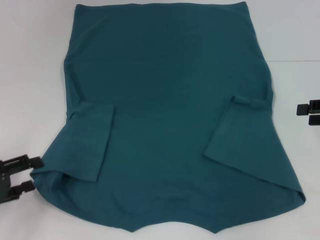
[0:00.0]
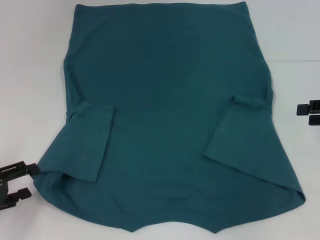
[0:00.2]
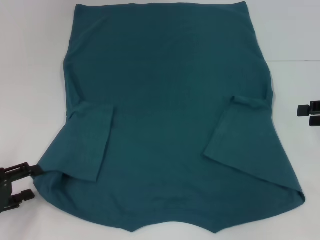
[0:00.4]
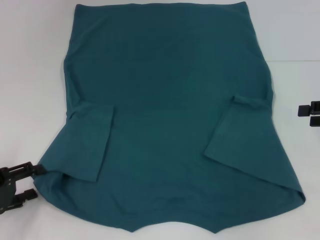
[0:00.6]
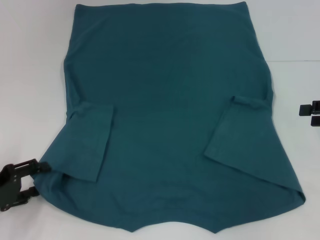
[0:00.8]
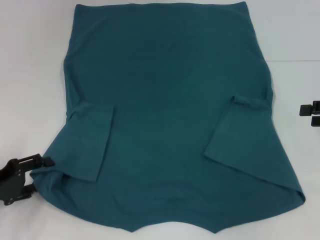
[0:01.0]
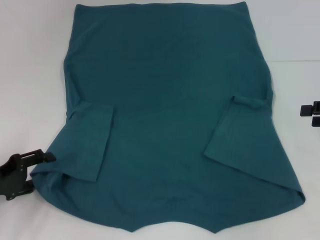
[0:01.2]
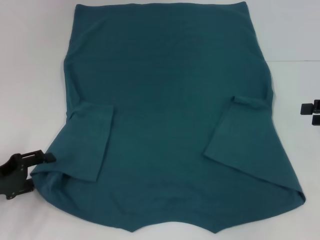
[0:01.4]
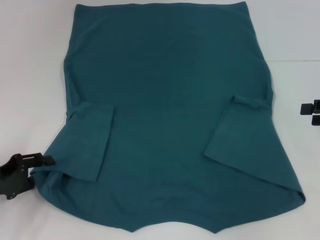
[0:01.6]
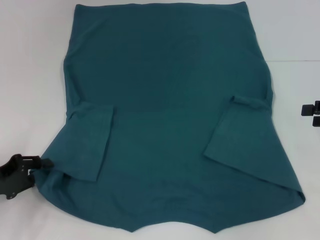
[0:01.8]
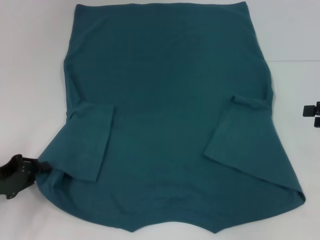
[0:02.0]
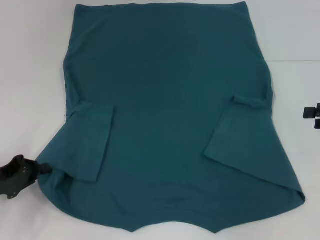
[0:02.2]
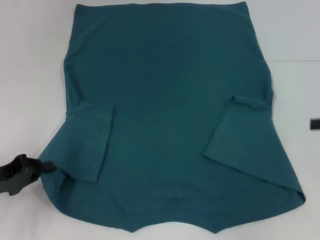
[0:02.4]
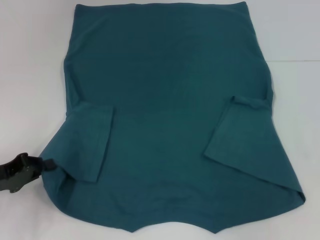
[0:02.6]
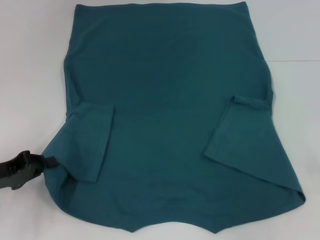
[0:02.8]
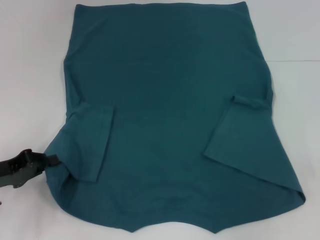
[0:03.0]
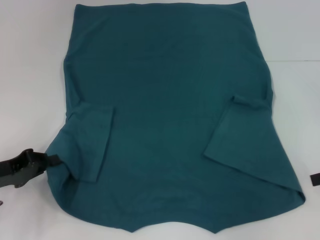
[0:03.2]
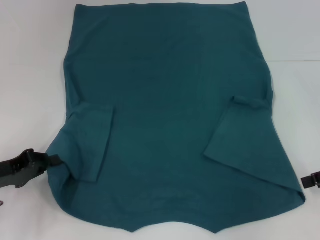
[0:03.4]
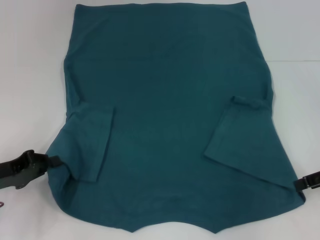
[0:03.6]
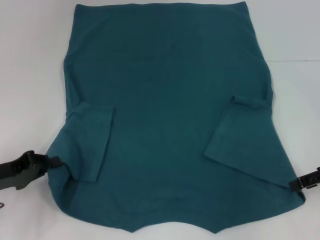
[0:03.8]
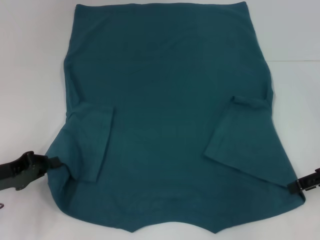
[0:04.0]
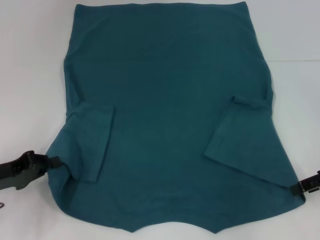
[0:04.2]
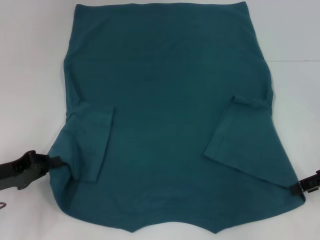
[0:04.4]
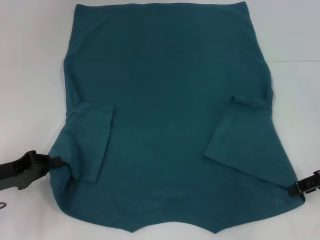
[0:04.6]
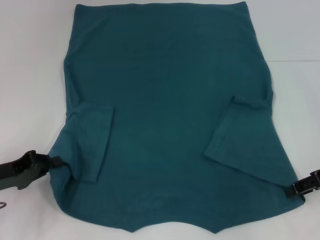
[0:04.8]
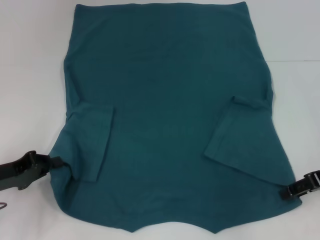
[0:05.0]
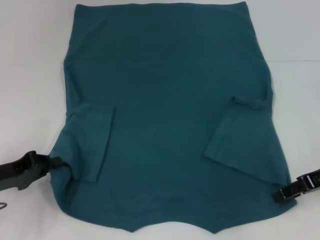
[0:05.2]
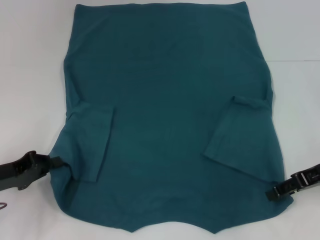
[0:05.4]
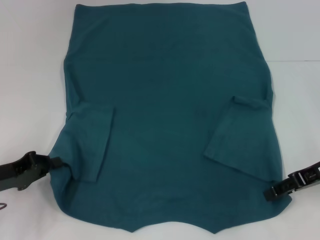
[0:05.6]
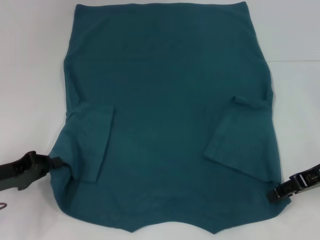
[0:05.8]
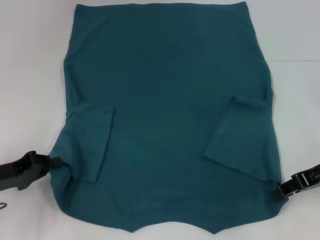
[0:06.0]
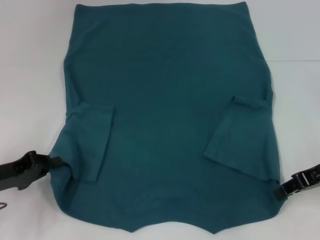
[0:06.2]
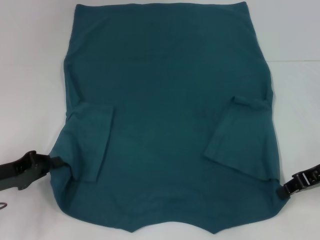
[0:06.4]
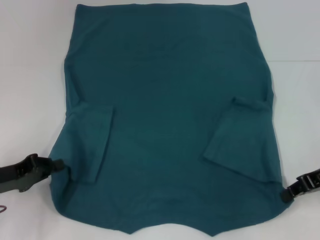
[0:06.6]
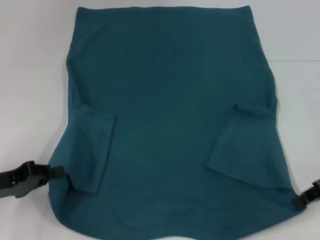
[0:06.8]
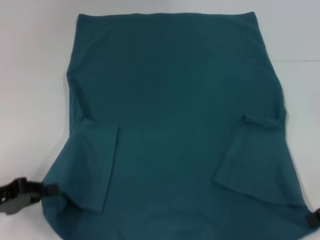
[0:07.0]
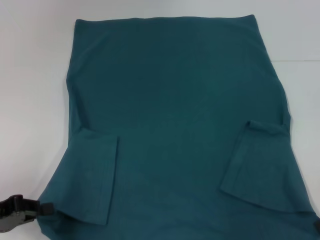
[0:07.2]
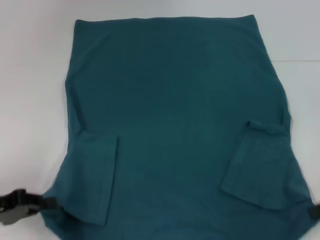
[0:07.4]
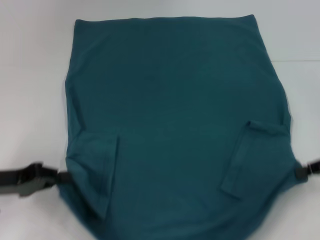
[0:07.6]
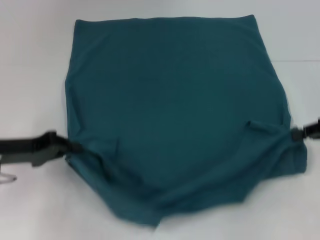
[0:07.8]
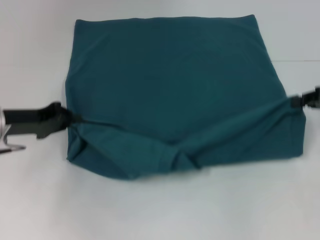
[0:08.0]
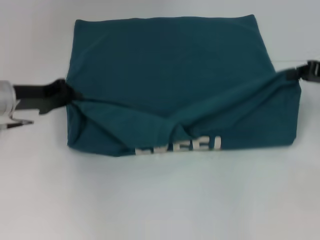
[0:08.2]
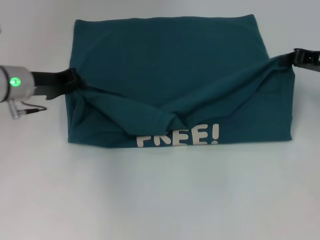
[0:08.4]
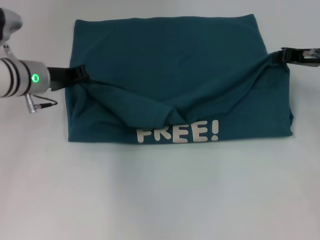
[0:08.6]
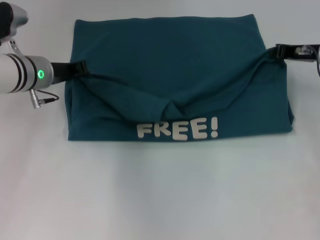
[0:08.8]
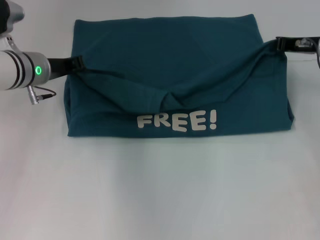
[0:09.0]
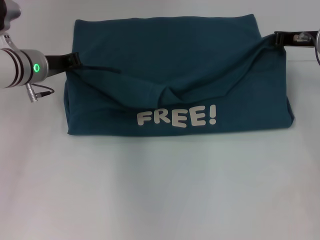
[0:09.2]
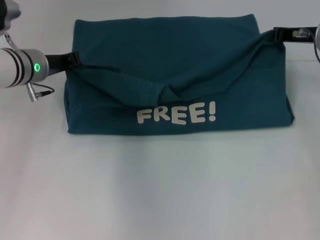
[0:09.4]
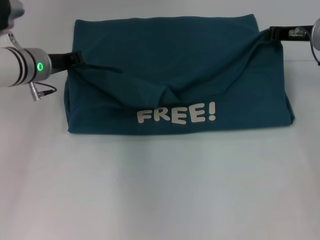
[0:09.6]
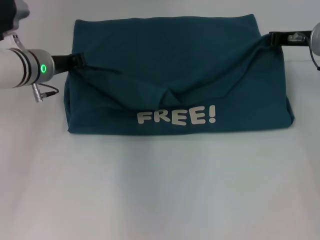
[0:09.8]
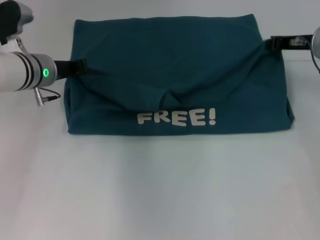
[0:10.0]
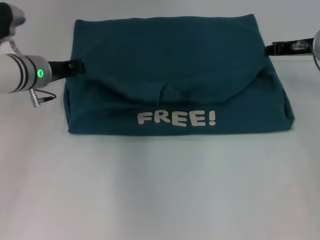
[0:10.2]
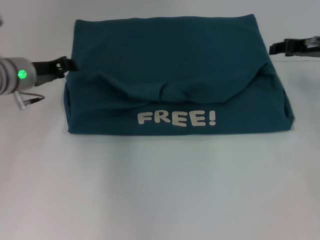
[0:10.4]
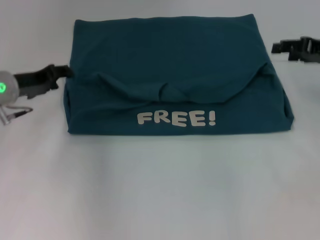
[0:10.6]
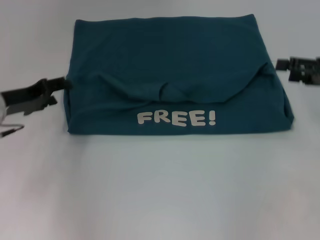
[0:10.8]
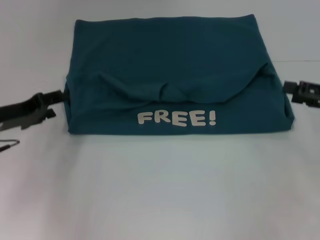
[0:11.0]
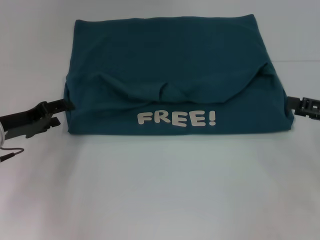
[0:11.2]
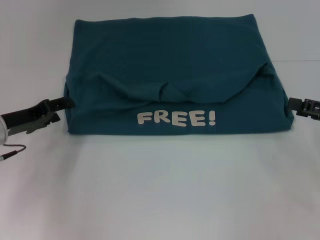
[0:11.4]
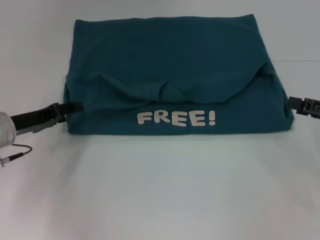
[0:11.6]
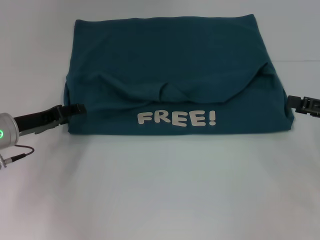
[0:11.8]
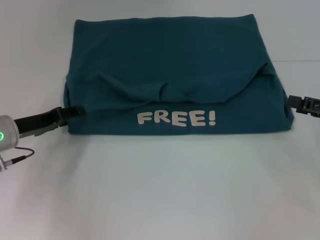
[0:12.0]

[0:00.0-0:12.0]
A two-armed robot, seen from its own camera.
Step, 0:00.0 to 0:02.6: Grab the bottom left corner with your left hand.
Step, 0:02.8 to 0:06.8: Grab the bottom right corner with your right hand.
Step, 0:07.0 to 0:10.6: Fold the clothes to the left.
Step, 0:07.0 to 0:10.6: Fold the clothes to the right.
0:00.0 to 0:01.6: There are only small adjustments of the grippers.
0:01.6 to 0:03.0: The left gripper closes.
0:03.0 to 0:04.4: The right gripper shifts some 5 cm to the left.
0:04.4 to 0:06.0: There are only small adjustments of the grippers.
0:06.0 to 0:07.6: The right gripper goes roughly 5 cm to the right, and closes.
0:07.6 to 0:09.0: The right gripper travels forward and to the left by approximately 15 cm; the left gripper is displaced forward and to the right by about 20 cm.
0:09.0 to 0:10.4: The grippers move only a little.
0:10.4 to 0:12.0: The left gripper heads backward and downward, covering about 10 cm, and opens, while the right gripper moves backward and to the right, some 15 cm, and opens up.

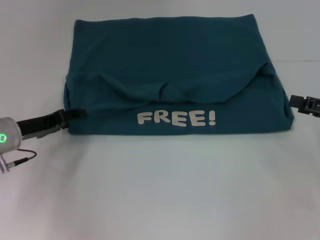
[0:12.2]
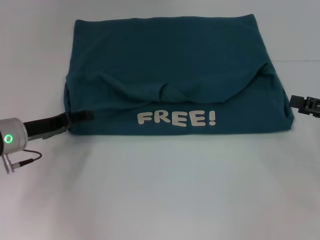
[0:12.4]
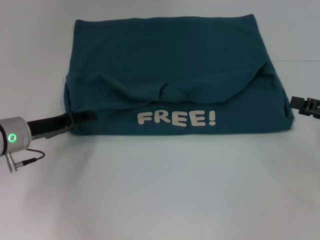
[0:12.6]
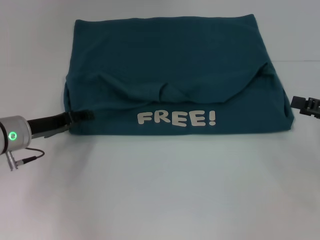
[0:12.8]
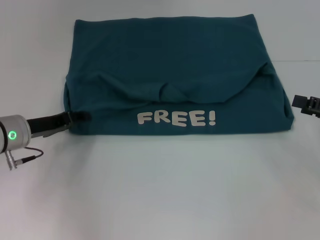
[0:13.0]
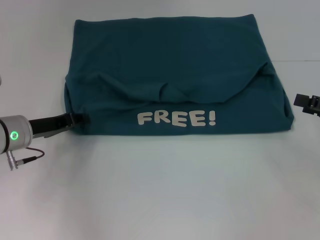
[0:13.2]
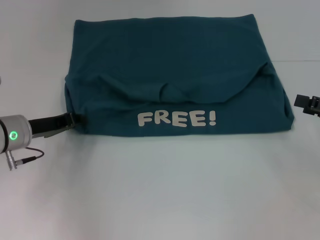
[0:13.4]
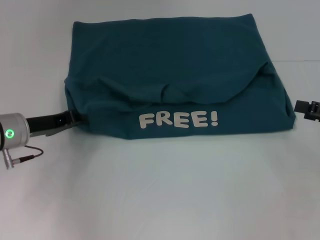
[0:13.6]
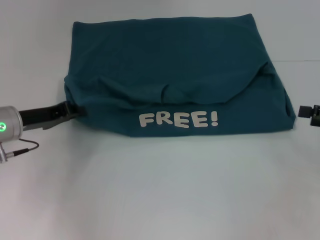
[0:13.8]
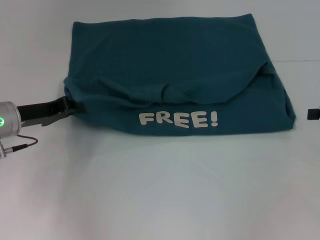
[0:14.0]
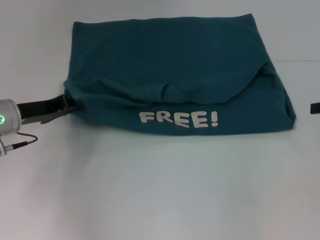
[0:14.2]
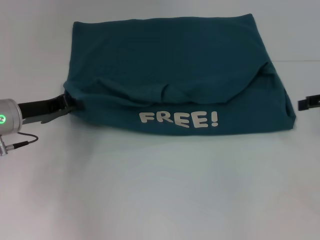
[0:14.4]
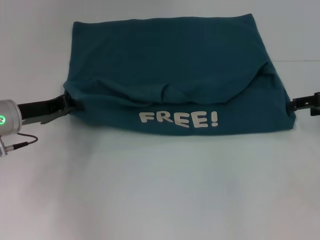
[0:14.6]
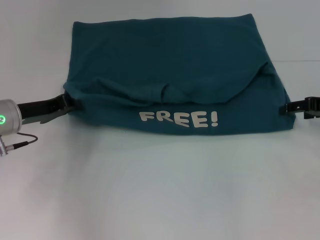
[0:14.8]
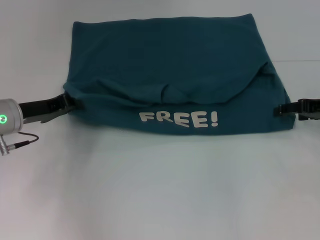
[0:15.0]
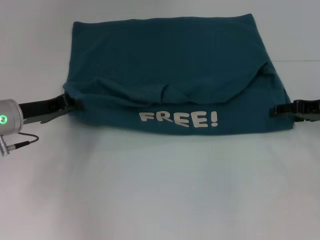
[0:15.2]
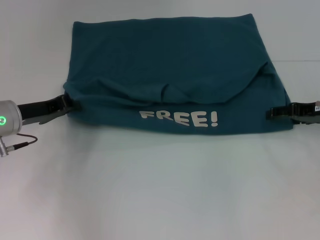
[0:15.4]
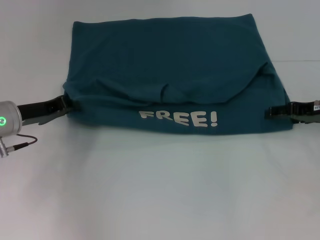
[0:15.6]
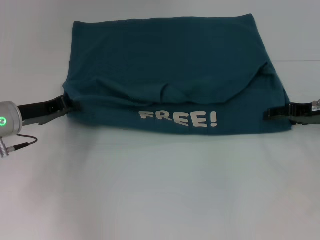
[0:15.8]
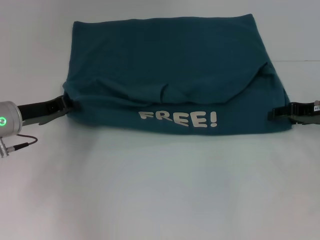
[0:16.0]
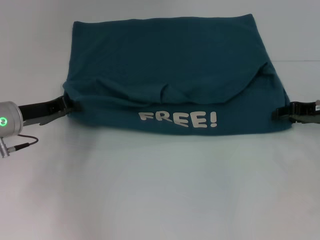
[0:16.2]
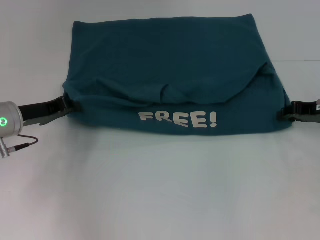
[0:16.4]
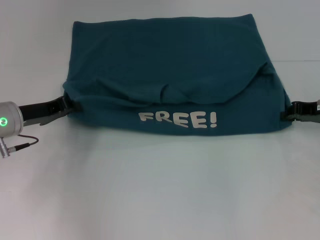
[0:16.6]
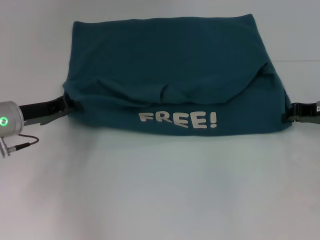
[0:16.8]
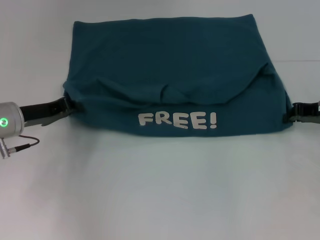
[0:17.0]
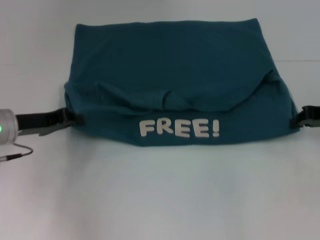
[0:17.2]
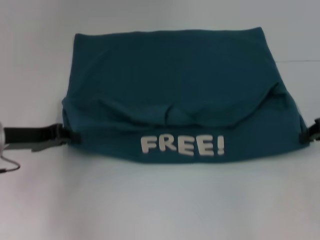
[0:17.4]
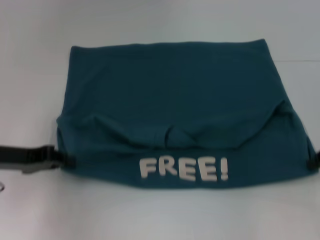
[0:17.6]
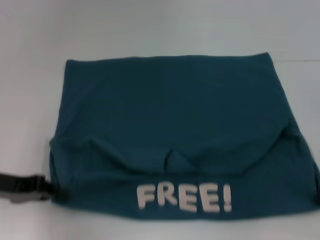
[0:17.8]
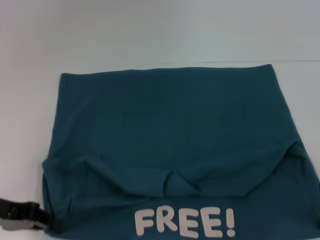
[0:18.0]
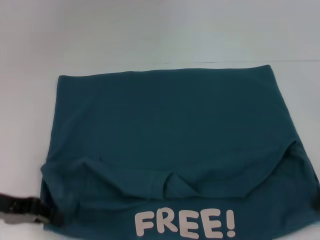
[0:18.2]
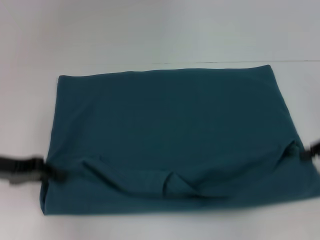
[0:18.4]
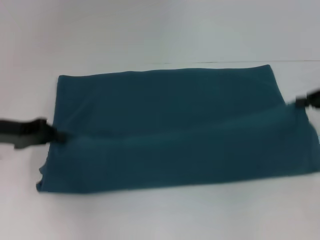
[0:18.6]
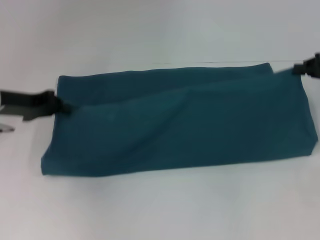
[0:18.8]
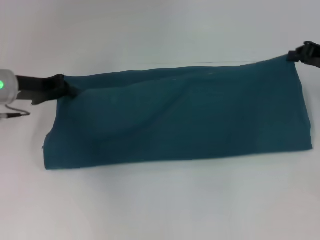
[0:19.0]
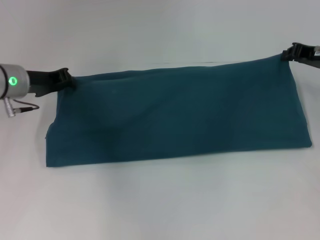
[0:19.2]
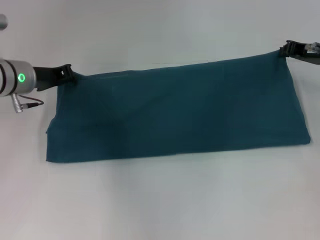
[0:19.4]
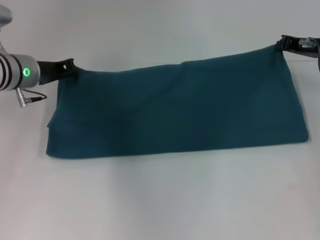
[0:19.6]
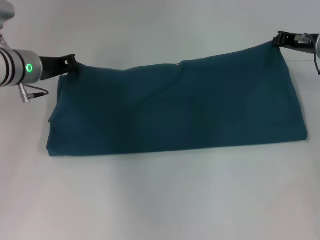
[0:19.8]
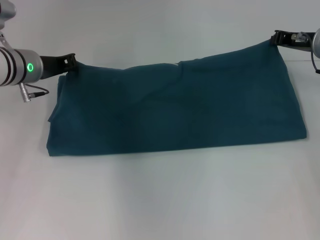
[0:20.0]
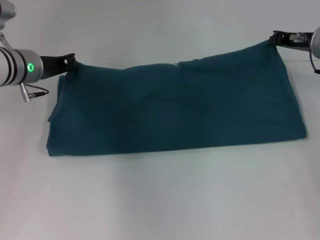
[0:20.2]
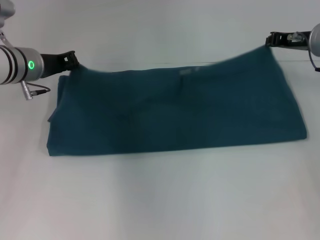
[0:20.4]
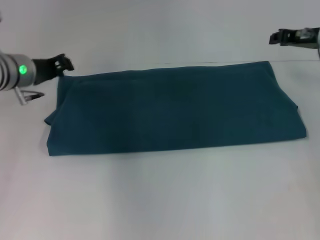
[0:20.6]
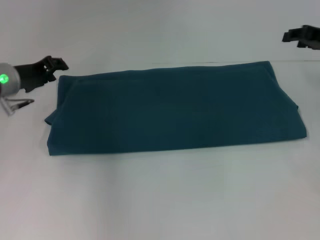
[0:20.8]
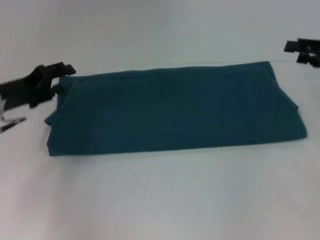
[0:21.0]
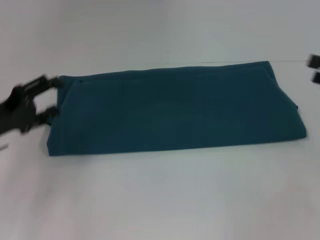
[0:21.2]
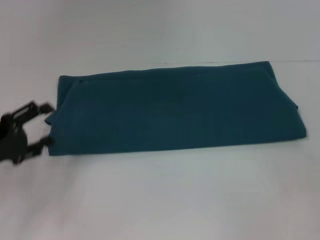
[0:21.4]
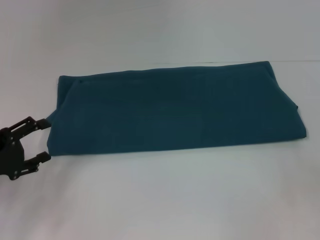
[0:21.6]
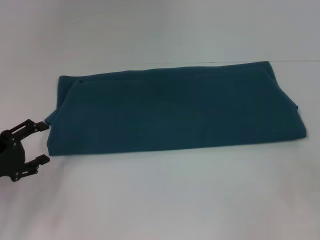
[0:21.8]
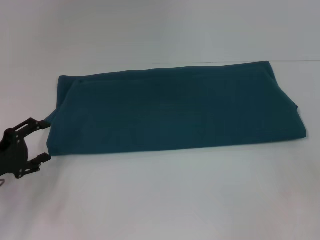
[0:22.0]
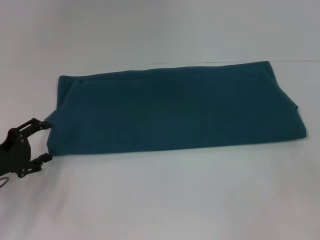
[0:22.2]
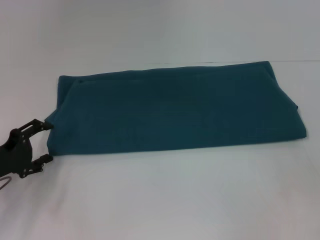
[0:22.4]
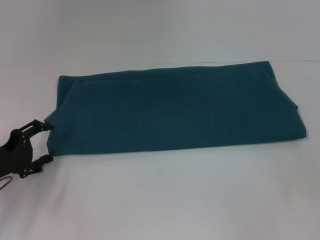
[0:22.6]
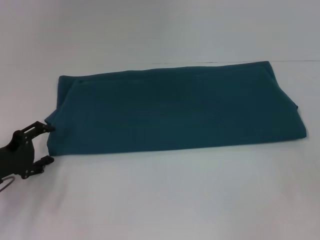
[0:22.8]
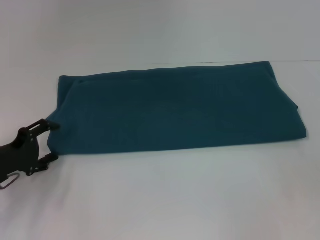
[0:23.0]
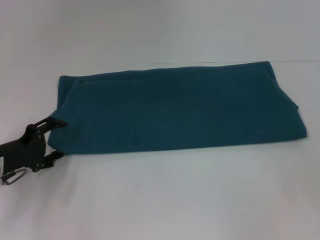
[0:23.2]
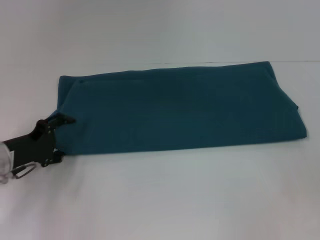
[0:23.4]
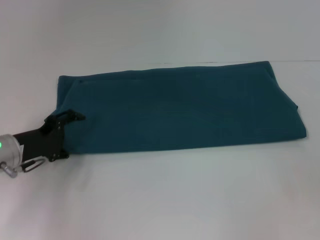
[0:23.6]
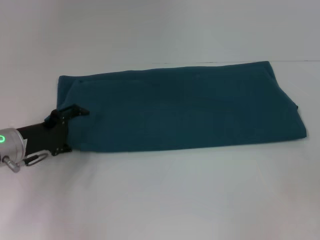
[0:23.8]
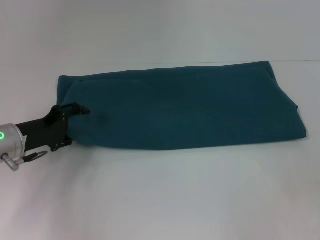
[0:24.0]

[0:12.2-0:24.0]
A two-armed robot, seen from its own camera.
Step, 0:12.2 to 0:18.0: Pull the clothes with your left hand.
Step, 0:12.2 to 0:18.0: Pull the clothes with your right hand.
Step, 0:18.2 to 0:21.2: Fold the clothes to the right.
0:12.2 to 0:13.6: The left gripper closes up.
0:13.6 to 0:15.2: The right gripper goes roughly 10 cm forward and to the left.
0:15.2 to 0:16.6: The right gripper closes its fingers.
0:16.6 to 0:18.2: The grippers both shift backward by some 10 cm.
0:18.2 to 0:19.6: The right gripper moves forward and to the left, approximately 15 cm; the left gripper moves forward, roughly 15 cm.
0:19.6 to 0:21.0: The right gripper shifts about 10 cm to the right and backward, and opens; the left gripper moves backward, roughly 10 cm, and opens up.
0:21.0 to 0:22.6: The left gripper goes roughly 10 cm backward and downward, and opens its fingers. The right gripper shifts about 10 cm backward, and opens.
0:22.6 to 0:24.0: The left gripper moves forward, some 5 cm.
